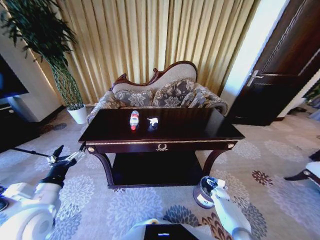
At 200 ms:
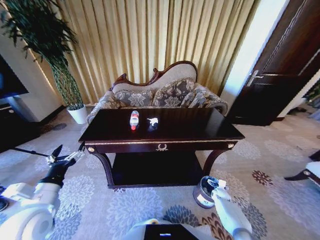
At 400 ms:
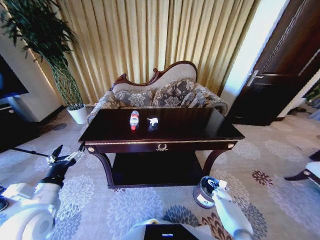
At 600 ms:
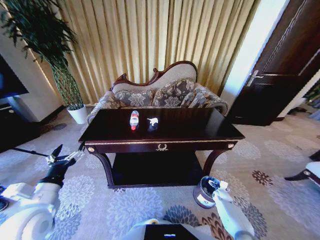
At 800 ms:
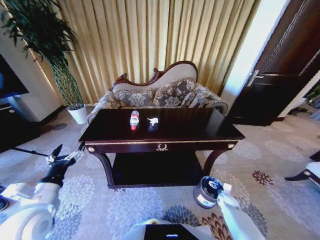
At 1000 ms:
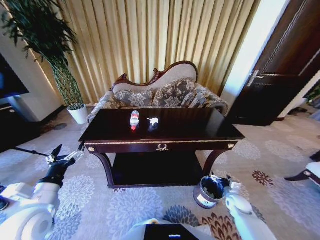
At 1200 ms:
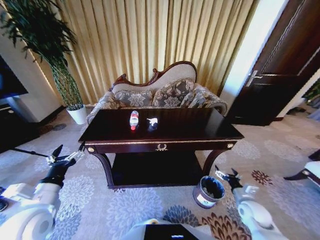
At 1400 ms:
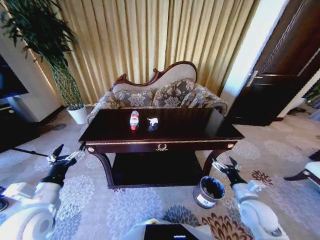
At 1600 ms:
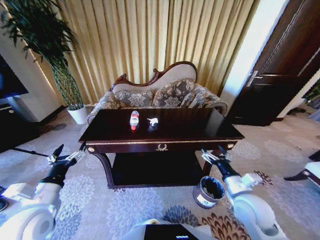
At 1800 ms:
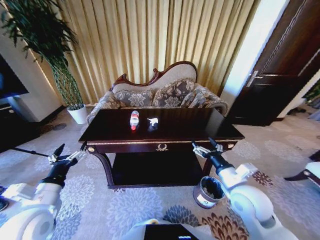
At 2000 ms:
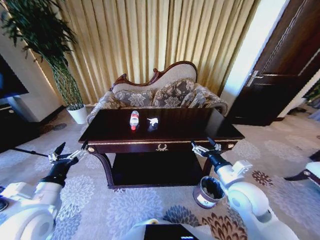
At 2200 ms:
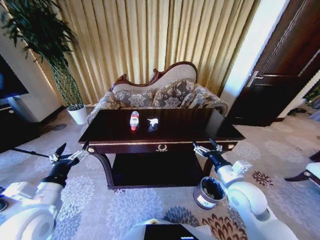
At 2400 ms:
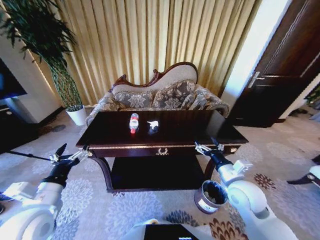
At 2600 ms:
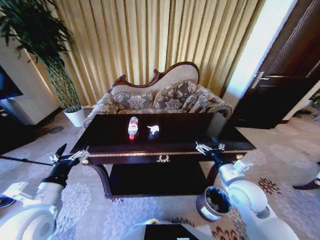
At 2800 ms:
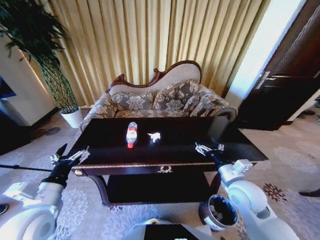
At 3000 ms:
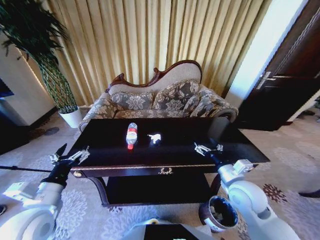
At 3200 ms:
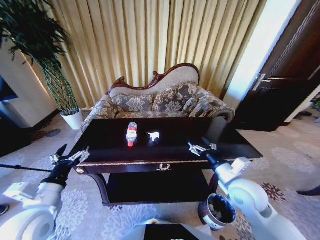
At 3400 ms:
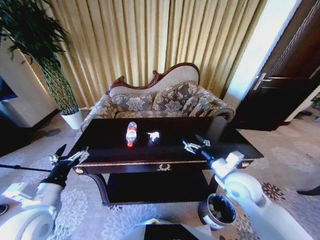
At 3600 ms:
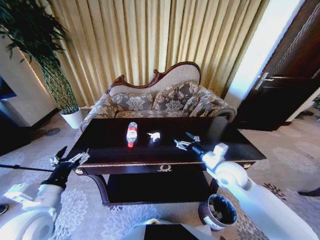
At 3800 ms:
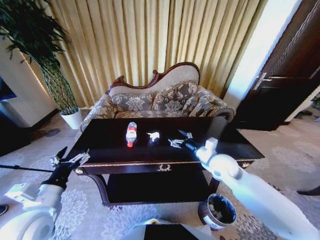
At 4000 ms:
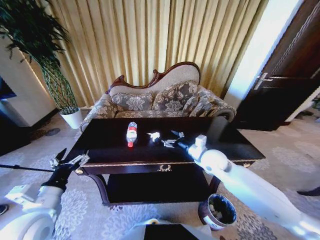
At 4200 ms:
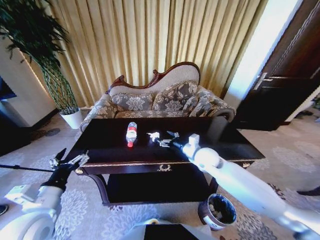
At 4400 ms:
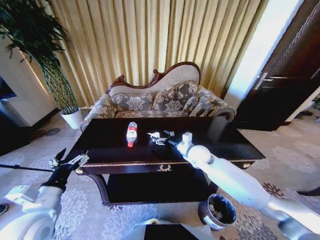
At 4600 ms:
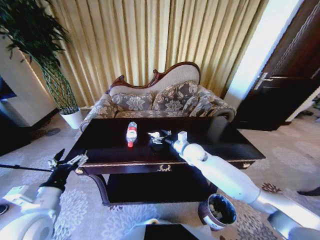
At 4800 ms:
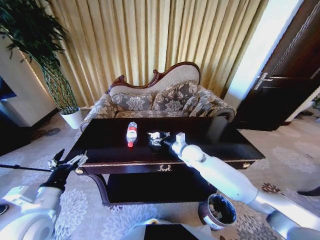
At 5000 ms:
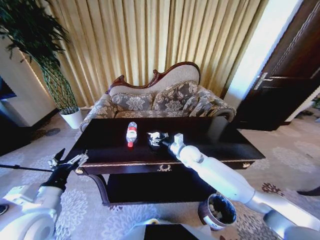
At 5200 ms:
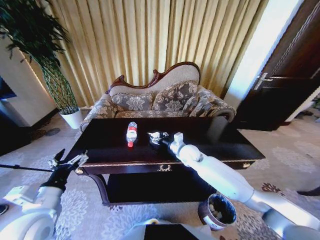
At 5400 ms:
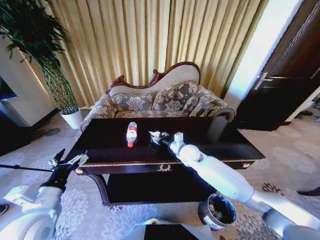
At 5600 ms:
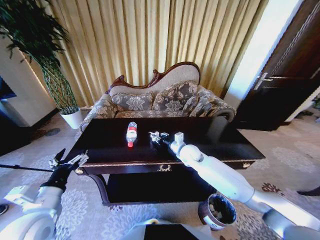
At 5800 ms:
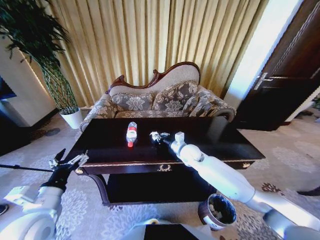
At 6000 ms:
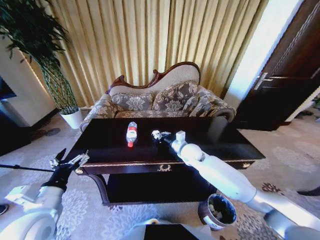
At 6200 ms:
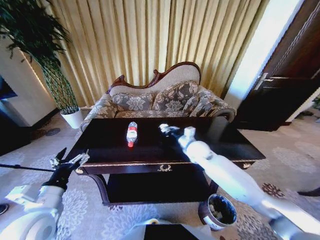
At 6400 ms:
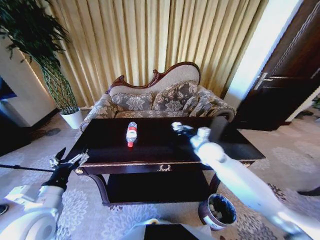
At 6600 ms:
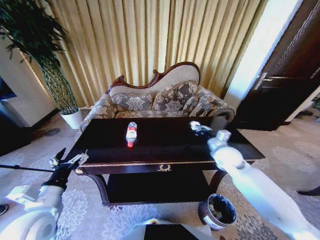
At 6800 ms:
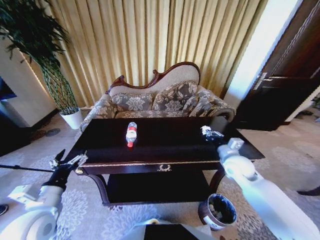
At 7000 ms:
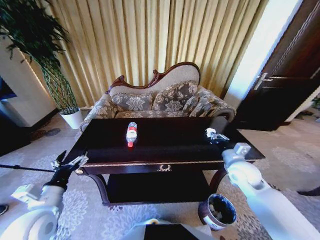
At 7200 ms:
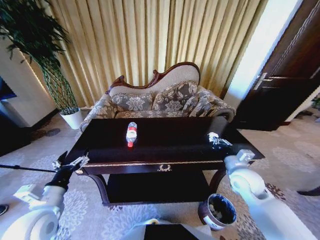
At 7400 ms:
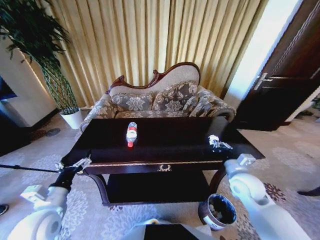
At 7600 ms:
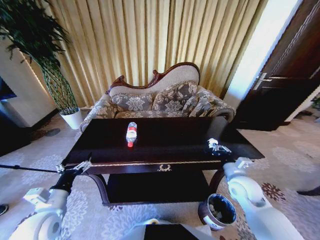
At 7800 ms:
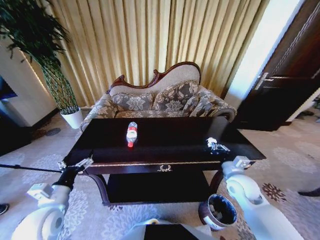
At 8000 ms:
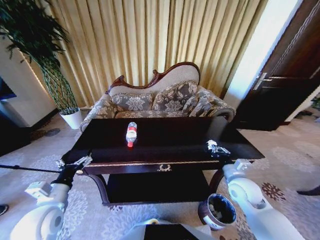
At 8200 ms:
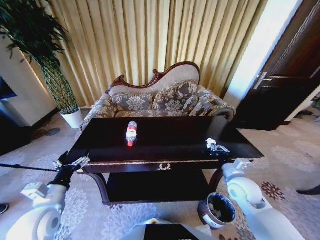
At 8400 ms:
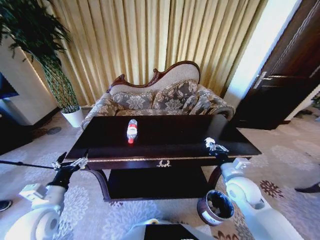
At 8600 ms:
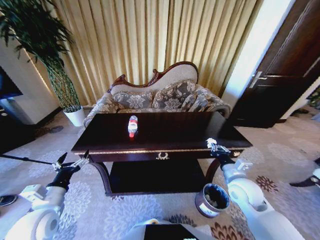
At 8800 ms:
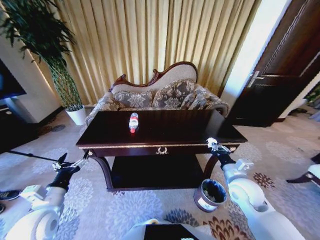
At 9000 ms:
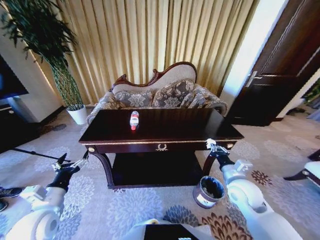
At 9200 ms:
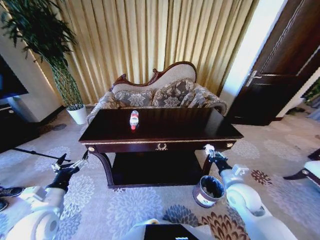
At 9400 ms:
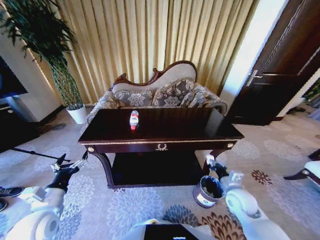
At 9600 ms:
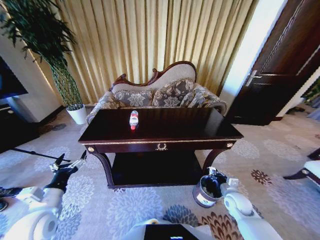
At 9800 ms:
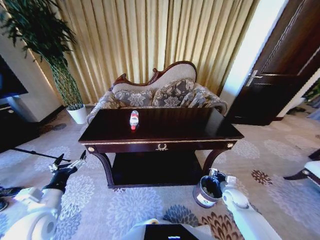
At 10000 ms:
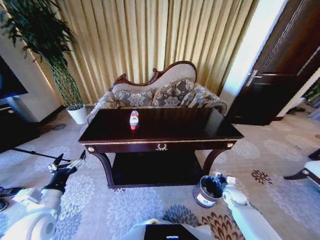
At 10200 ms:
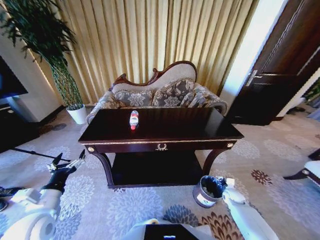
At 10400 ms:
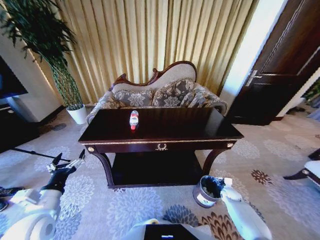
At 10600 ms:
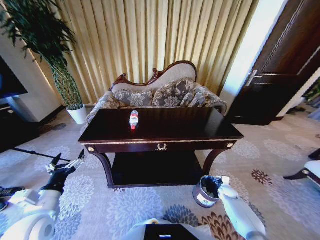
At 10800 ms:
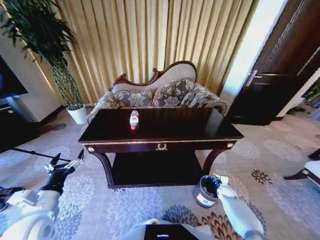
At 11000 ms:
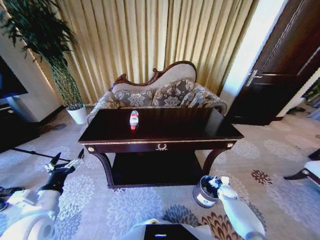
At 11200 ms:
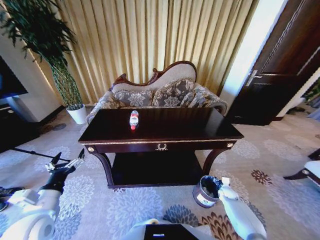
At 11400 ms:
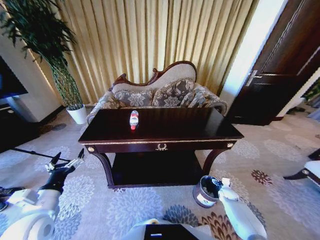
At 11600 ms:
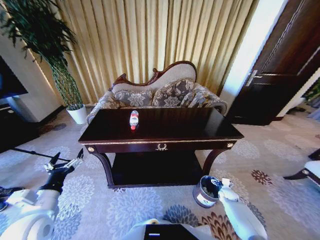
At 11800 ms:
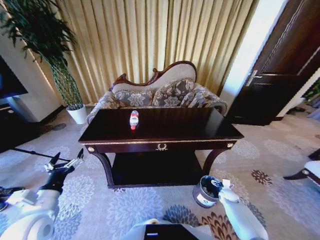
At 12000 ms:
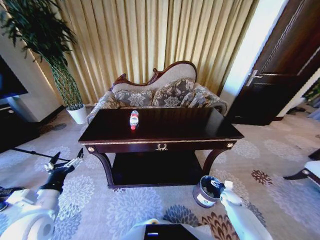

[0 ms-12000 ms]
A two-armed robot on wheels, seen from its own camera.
Task of the whole recording: Move to the front of the table and place the trash on the table into the trash bin.
0 ms to 1600 ms: The right gripper goes approximately 35 cm upward.
3000 ms to 4400 ms: The right gripper shifts some 20 cm forward and to the left.
4400 ms to 6000 ms: The right gripper closes.
6000 ms to 7600 ms: The right gripper moves to the right and backward, roughly 25 cm. The left gripper travels downward by roughly 5 cm.
9000 ms to 10400 ms: The right gripper is displaced downward and to the right by about 30 cm.
10400 ms to 12000 ms: The right gripper opens its fingers.

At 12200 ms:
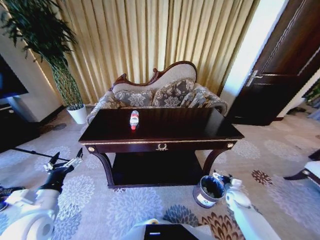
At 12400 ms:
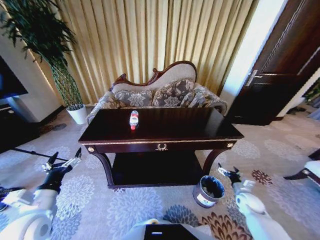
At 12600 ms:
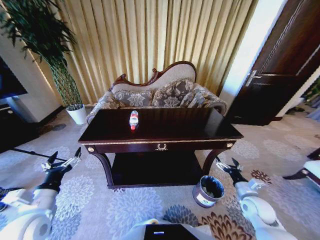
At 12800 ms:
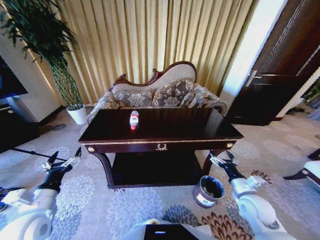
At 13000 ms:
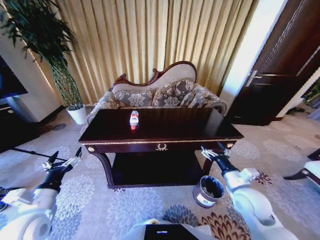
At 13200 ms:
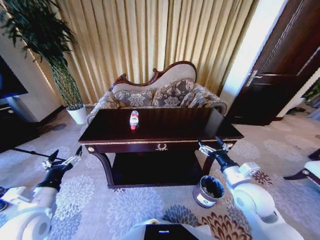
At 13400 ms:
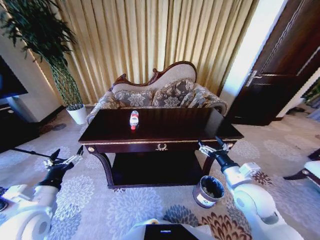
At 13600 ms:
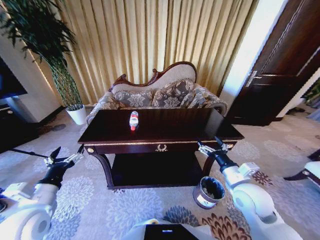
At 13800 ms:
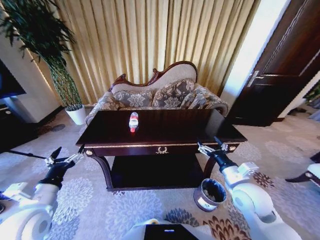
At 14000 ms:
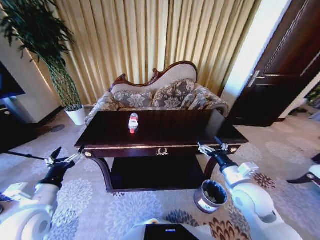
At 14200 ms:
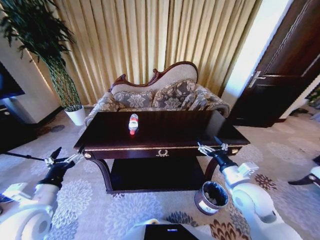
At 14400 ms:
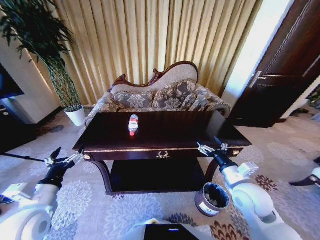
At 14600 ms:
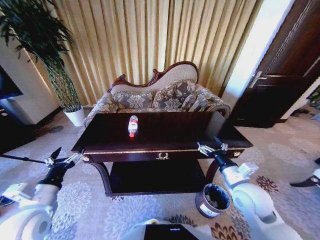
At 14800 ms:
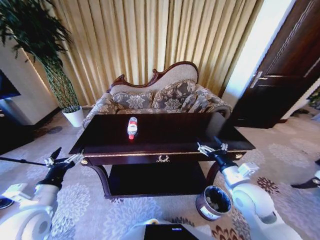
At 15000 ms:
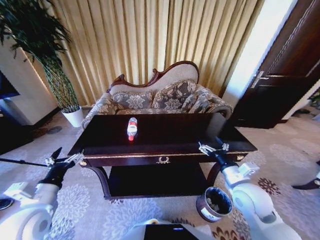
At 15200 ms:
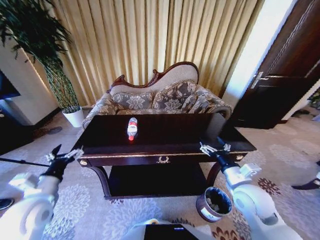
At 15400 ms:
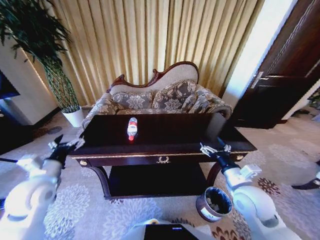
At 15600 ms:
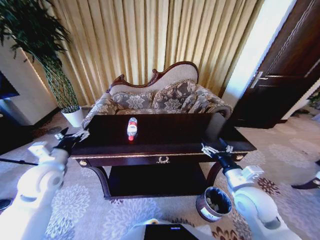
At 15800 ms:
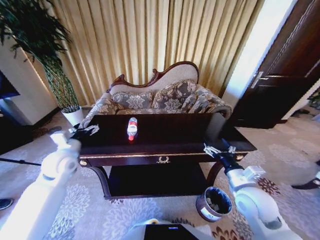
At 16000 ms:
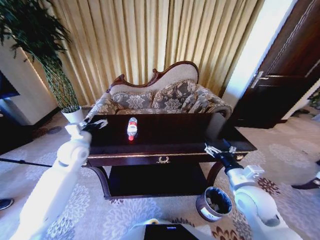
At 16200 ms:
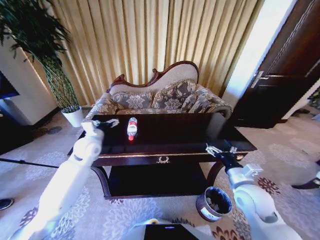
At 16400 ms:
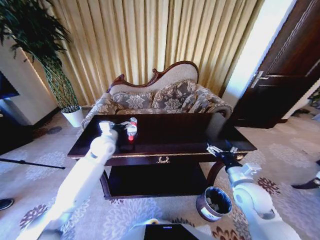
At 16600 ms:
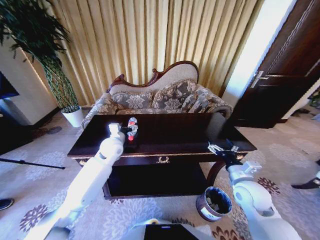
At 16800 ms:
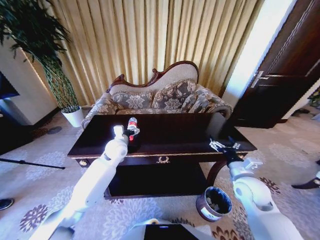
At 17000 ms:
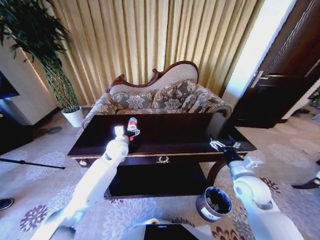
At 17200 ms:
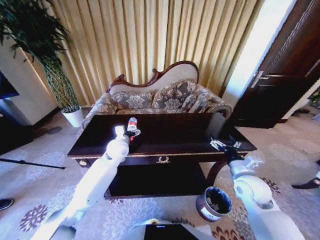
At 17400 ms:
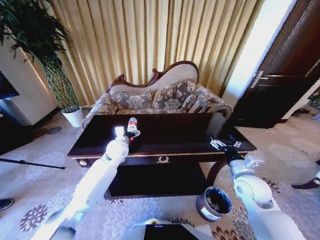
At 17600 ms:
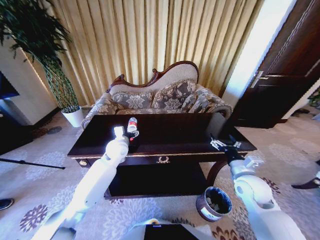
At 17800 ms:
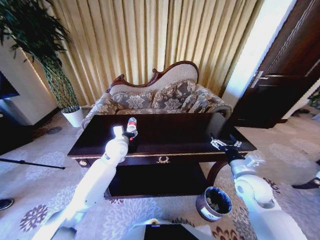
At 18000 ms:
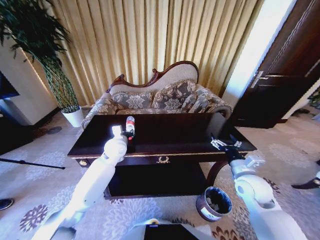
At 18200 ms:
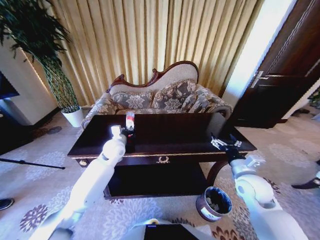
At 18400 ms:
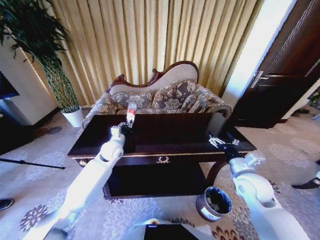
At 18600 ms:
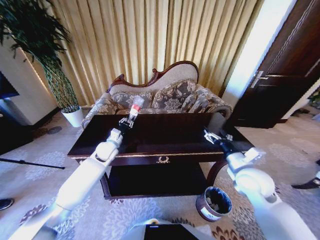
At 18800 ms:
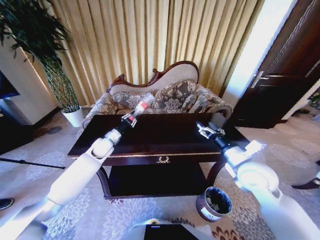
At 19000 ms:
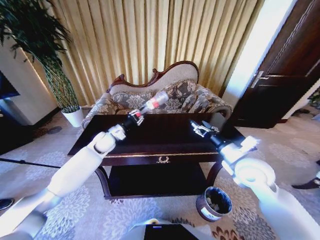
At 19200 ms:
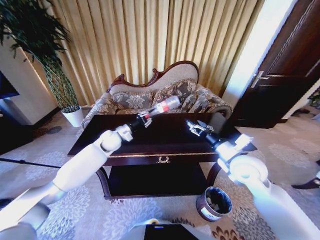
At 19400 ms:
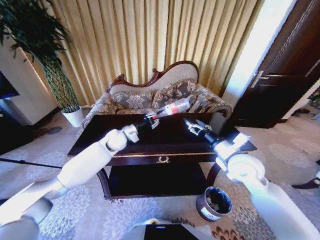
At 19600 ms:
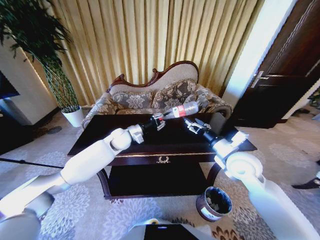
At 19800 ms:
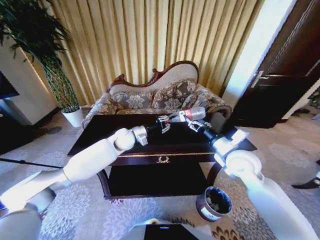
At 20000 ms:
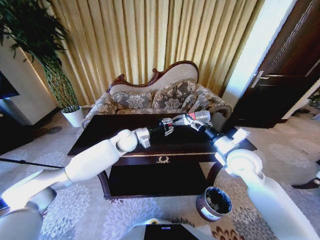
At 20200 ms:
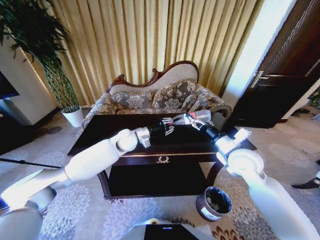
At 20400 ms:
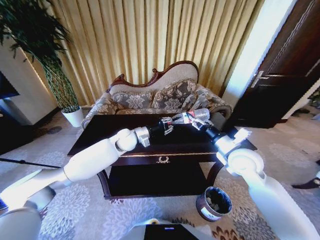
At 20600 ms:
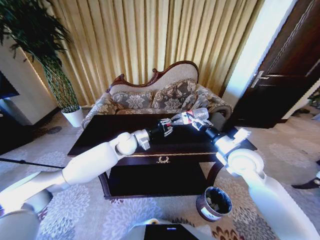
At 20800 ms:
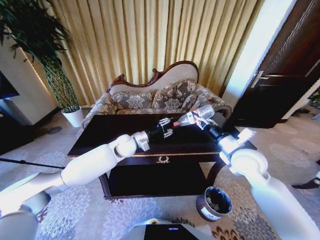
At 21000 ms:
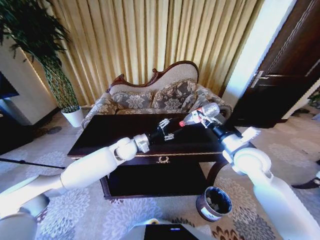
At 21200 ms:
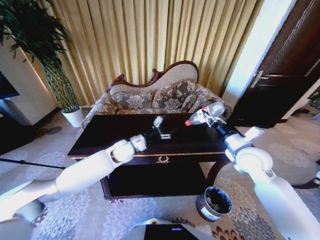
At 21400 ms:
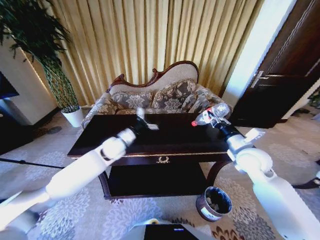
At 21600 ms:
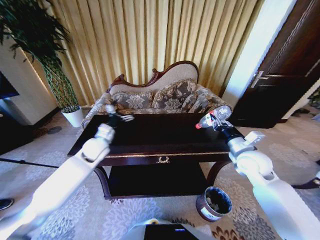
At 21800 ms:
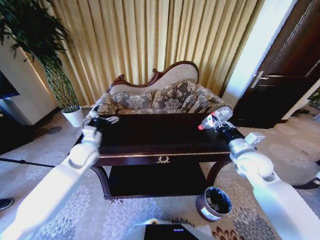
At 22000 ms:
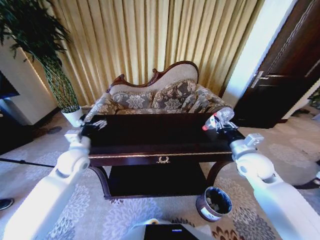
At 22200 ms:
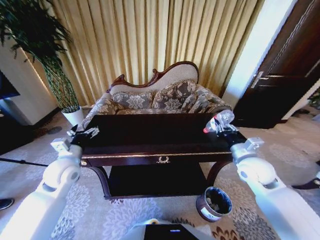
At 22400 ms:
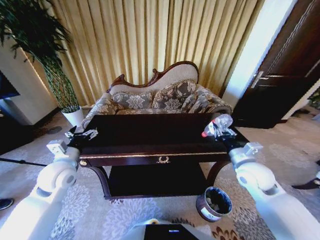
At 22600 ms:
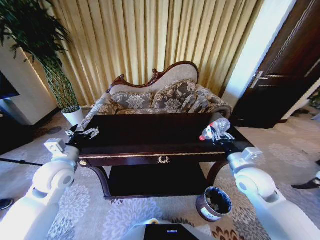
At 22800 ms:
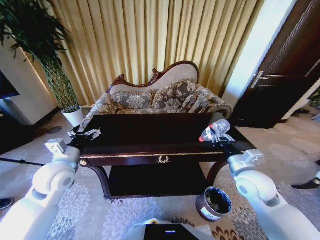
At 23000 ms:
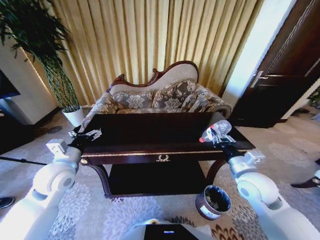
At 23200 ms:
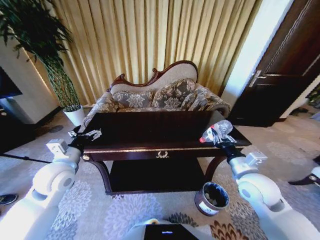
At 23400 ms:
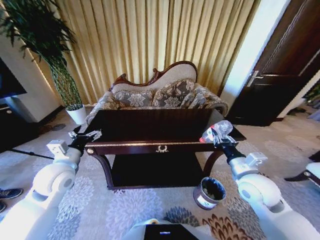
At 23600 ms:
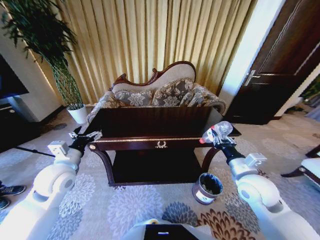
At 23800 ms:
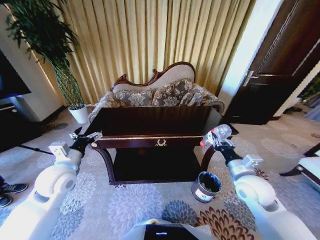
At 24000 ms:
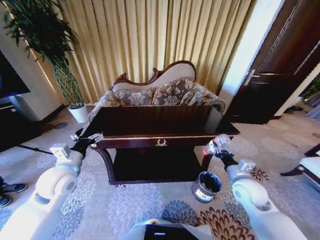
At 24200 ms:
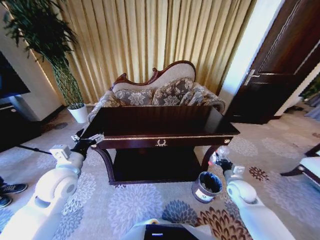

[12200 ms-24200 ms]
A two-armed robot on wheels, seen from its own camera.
Task of the whole recording: Move to the front of the table and place the trash on the table into the trash bin.
12200 ms to 13800 ms: The right gripper travels upward and to the left by roughly 30 cm.
15200 ms to 16600 ms: The left gripper moves forward and to the right, about 30 cm.
16600 ms to 18200 ms: The left gripper closes up.
18200 ms to 19800 ms: The right gripper travels upward, forward and to the left by some 10 cm. The left gripper shifts by roughly 5 cm.
19800 ms to 21200 ms: The left gripper shifts some 5 cm backward, and opens its fingers. The right gripper closes.
21200 ms to 22600 ms: The right gripper moves backward, roughly 5 cm. The left gripper goes roughly 20 cm to the left and backward.
22600 ms to 24200 ms: The right gripper heads downward, covering roughly 15 cm.
